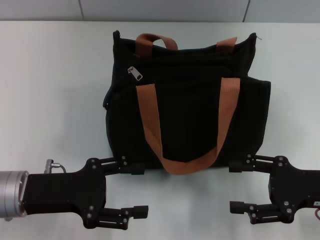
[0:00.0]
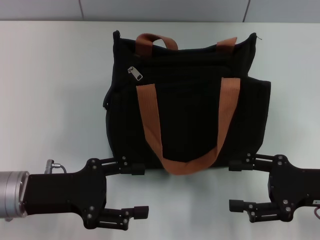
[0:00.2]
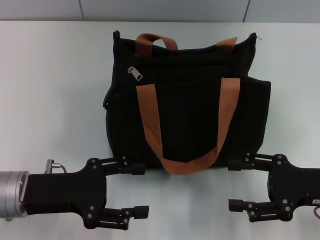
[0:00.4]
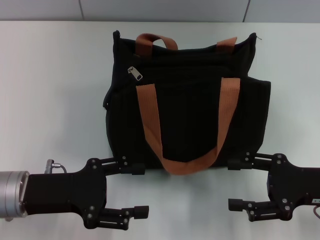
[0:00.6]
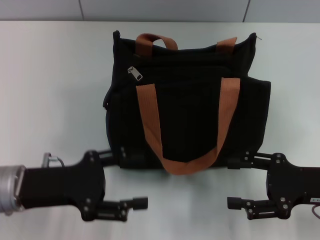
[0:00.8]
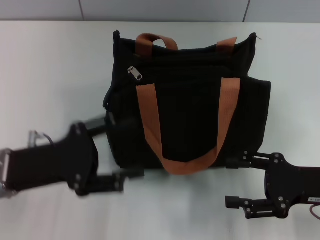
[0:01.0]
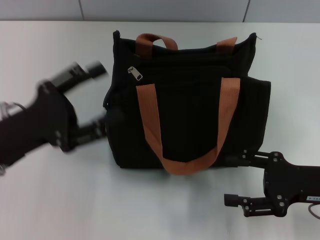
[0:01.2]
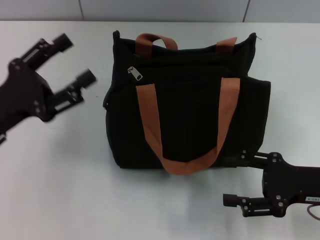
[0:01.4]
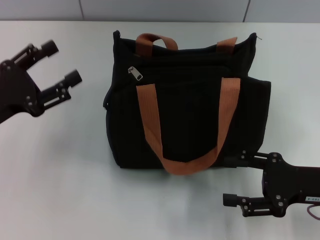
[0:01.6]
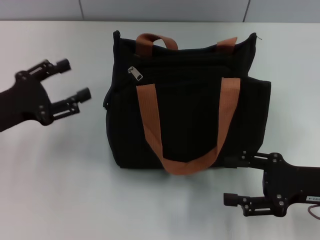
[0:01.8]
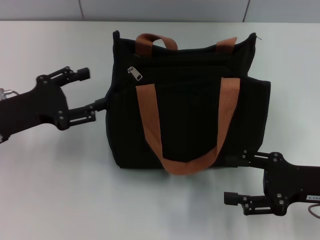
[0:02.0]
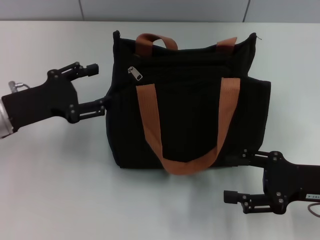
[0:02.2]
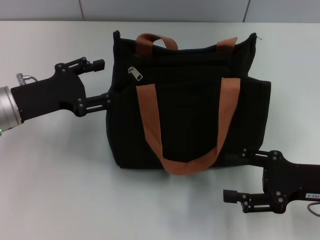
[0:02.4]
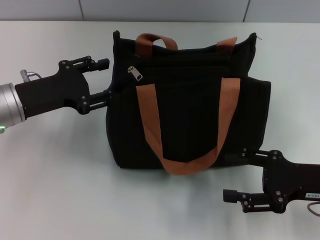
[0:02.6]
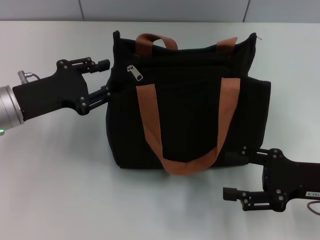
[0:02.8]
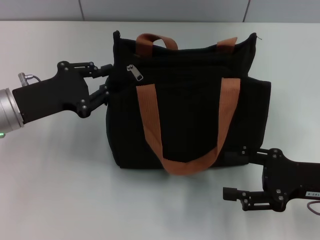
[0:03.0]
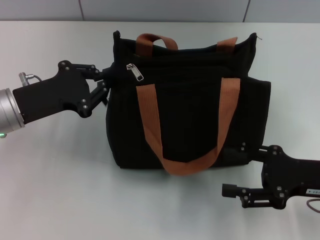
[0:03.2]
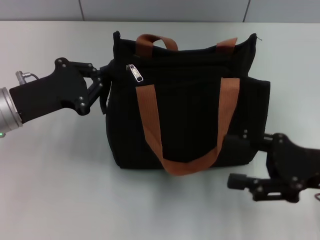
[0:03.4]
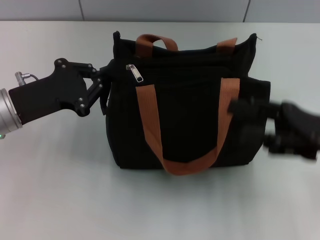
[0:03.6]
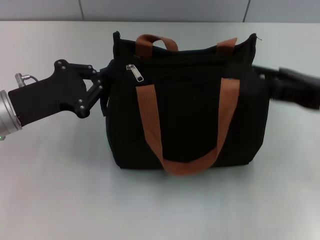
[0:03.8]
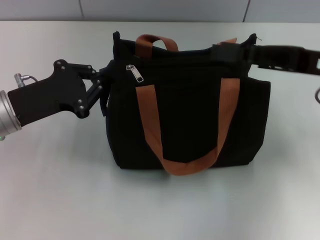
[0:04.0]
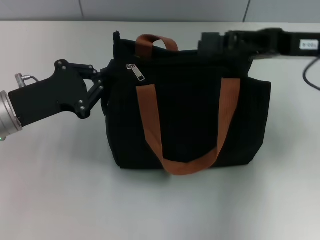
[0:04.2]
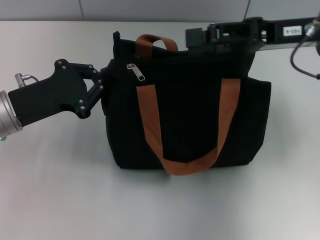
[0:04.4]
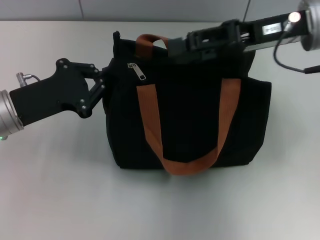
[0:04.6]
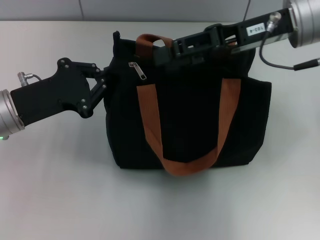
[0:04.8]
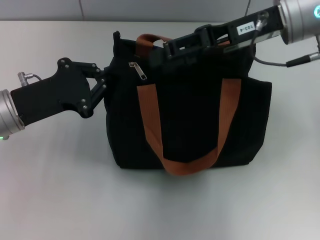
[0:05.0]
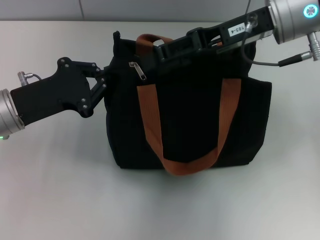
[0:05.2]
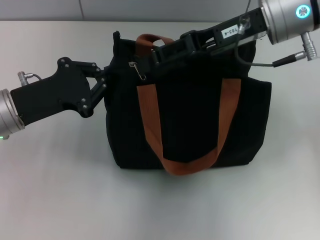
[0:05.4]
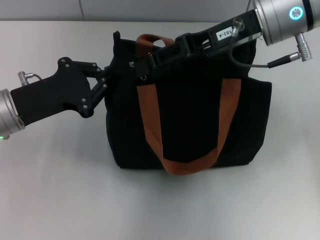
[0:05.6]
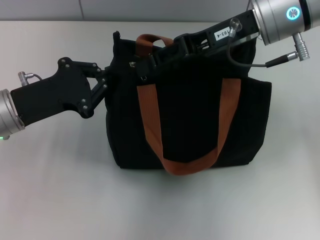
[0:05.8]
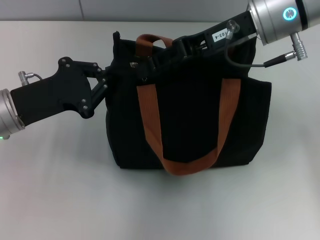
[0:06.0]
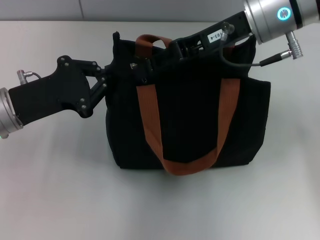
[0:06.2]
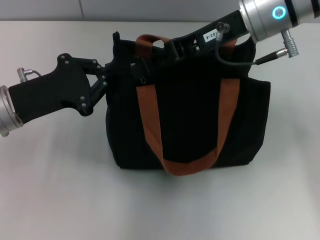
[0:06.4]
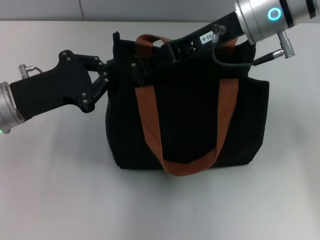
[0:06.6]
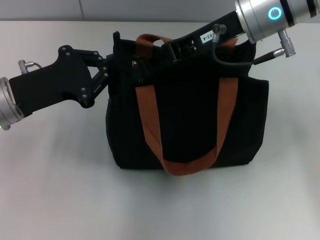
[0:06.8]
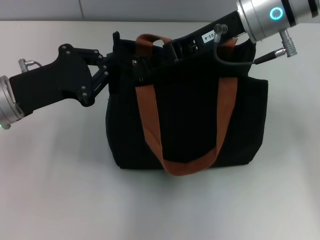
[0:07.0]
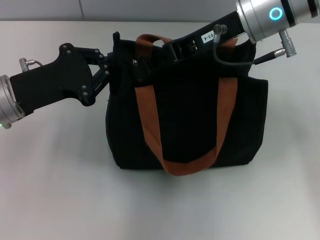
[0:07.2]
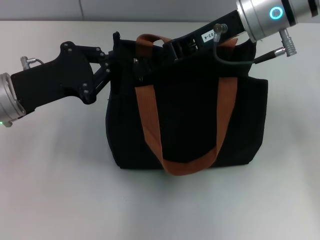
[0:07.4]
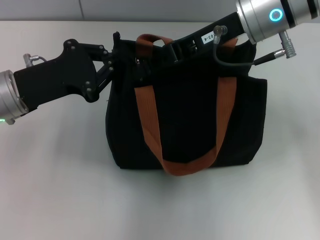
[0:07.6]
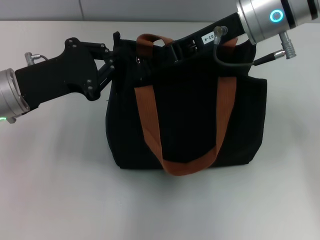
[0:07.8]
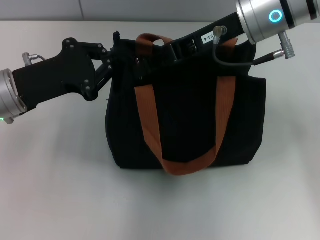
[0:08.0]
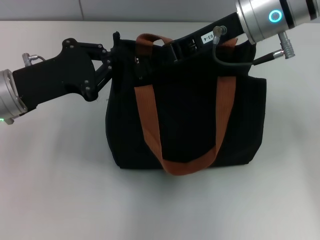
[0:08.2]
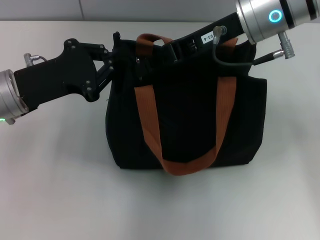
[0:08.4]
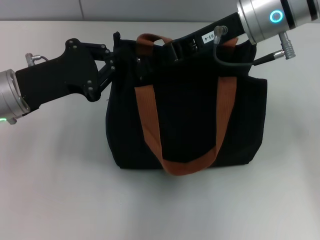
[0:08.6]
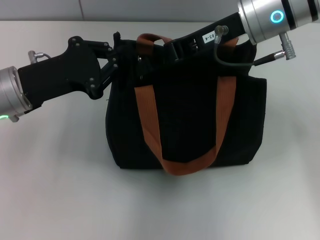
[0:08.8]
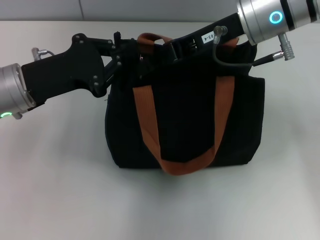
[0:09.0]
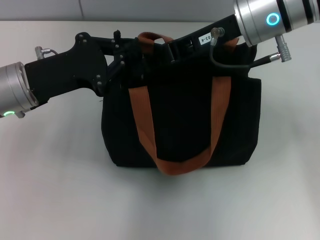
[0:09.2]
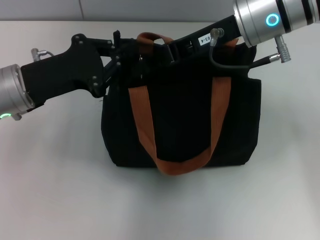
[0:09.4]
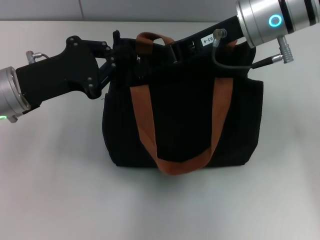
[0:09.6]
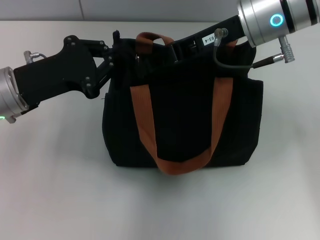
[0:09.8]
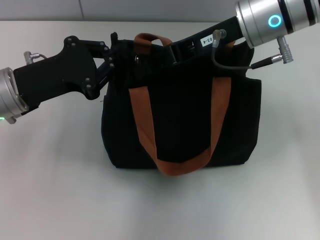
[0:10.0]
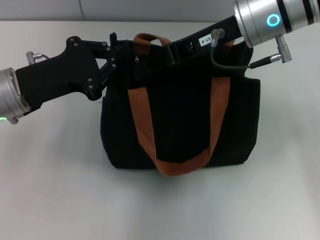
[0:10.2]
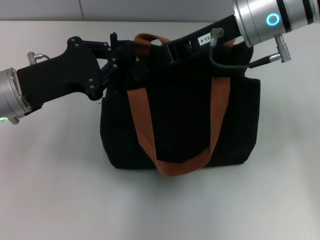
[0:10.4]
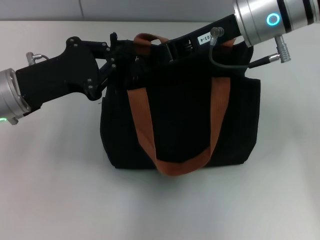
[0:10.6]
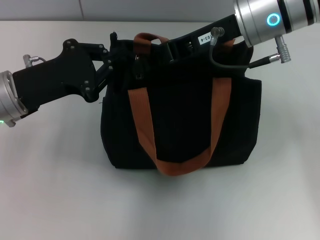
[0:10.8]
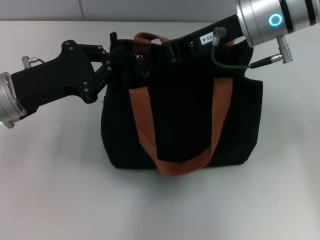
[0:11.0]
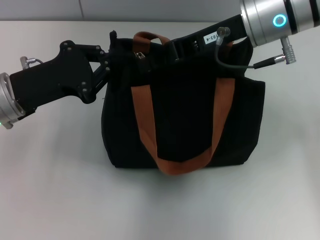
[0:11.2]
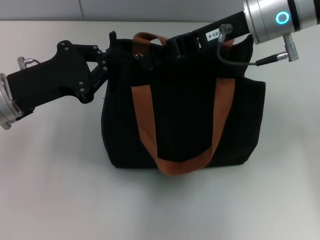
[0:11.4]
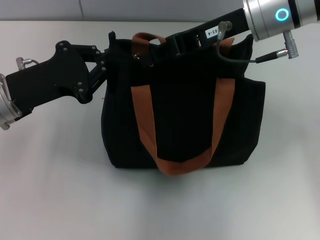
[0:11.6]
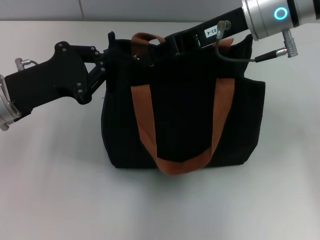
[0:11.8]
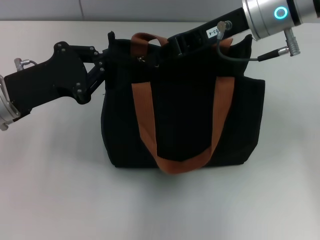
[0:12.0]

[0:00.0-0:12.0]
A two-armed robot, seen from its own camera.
0:00.0 to 0:01.6: The left gripper shifts about 5 cm to the left.
0:01.6 to 0:03.0: The left gripper ends up some 5 cm from where it was.
0:03.0 to 0:04.4: The right gripper shifts approximately 20 cm upward, forward and to the left, while the left gripper closes.
0:04.4 to 0:06.0: The right gripper moves to the left, about 10 cm, and closes its fingers.
0:06.0 to 0:07.6: The grippers make only small movements.
0:07.6 to 0:09.0: The two grippers keep their place.
0:09.0 to 0:10.4: Neither gripper changes place.
0:10.4 to 0:12.0: There are only small adjustments of the grippers.

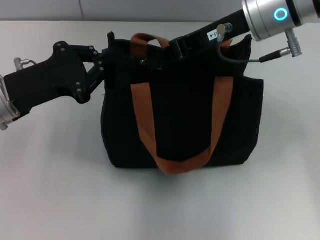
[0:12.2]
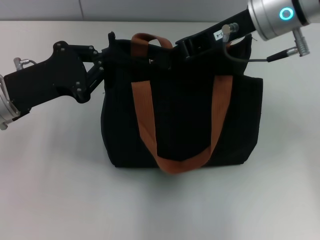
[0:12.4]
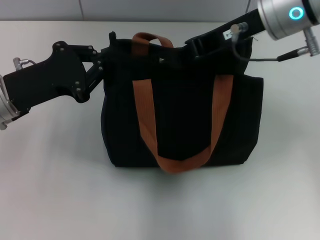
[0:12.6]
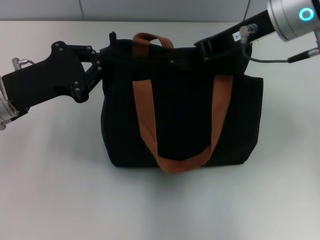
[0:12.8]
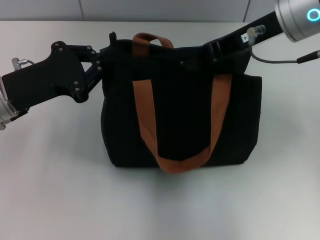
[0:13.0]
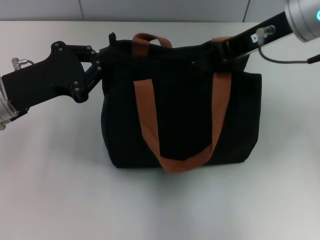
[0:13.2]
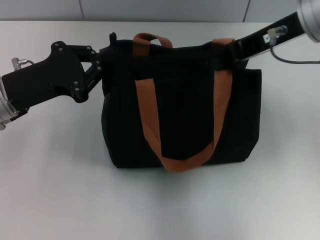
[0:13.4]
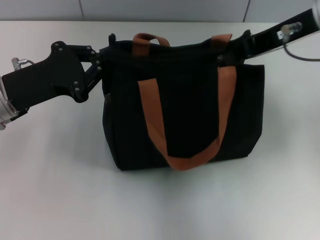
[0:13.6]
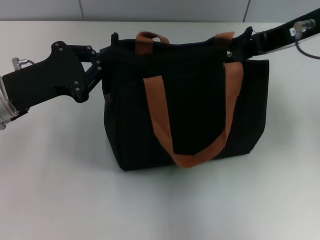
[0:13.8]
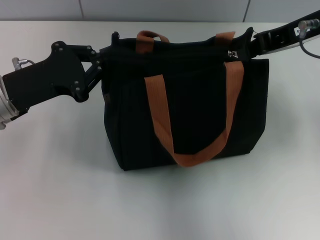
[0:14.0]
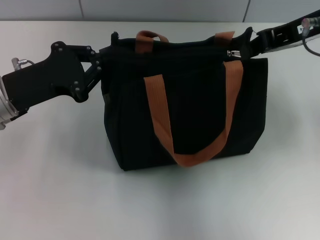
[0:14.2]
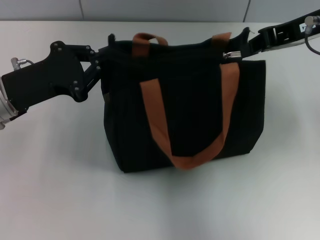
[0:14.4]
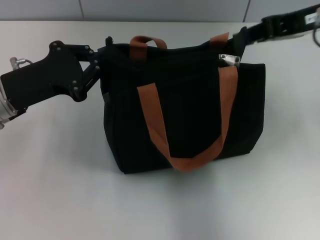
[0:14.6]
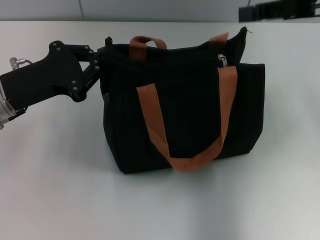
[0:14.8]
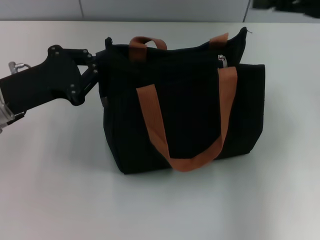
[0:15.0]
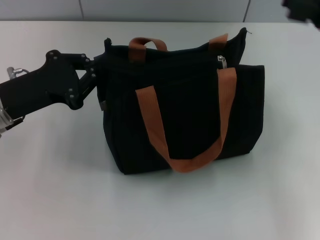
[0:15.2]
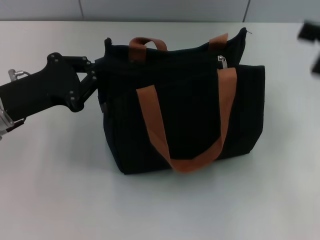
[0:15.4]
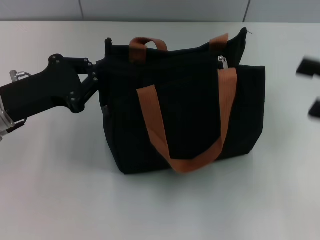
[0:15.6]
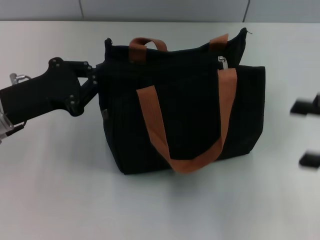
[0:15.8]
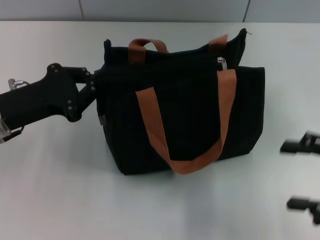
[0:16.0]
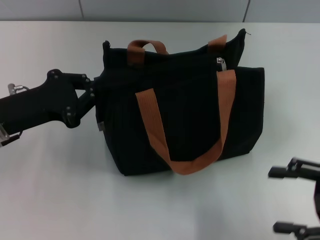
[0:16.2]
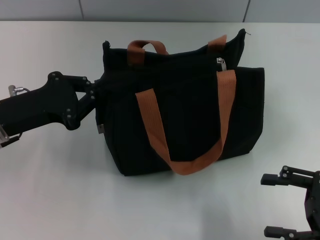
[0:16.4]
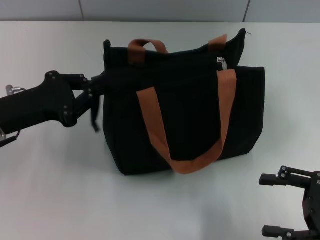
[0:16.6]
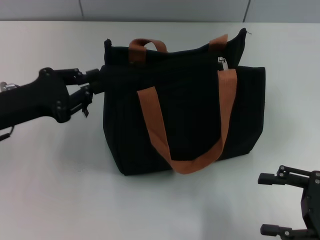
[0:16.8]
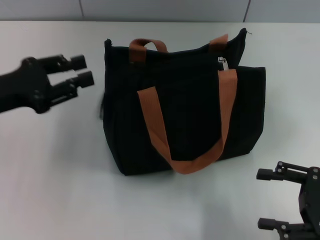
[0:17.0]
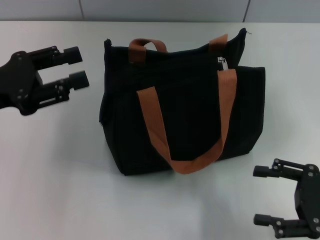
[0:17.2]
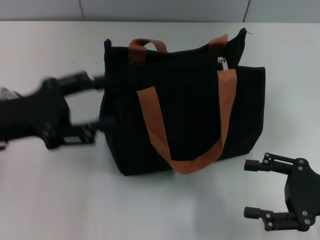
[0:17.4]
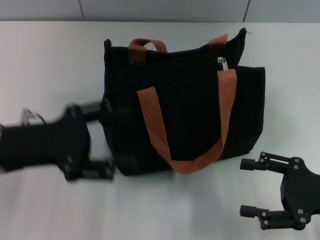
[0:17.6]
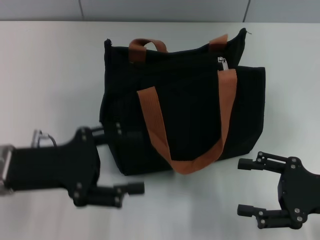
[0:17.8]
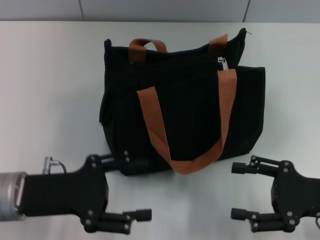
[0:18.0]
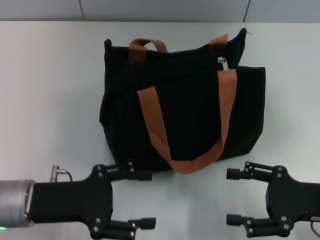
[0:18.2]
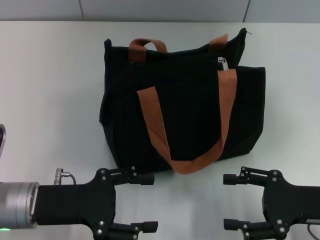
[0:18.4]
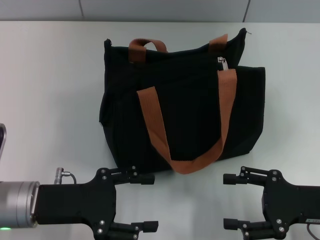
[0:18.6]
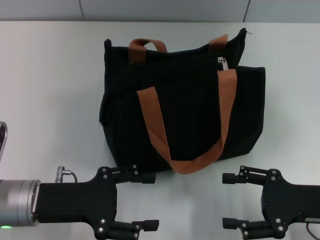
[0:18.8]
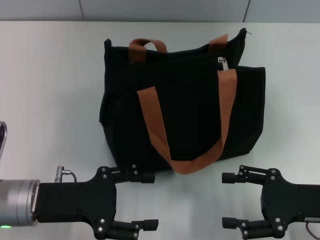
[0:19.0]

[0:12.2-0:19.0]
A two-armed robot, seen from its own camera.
Step, 0:12.2 to 0:14.4: Pull up the zipper with your right hand.
0:12.2 to 0:13.6: The right gripper shifts about 5 cm to the right.
0:13.6 to 0:15.0: The right gripper heads to the right, covering some 10 cm.
0:15.0 to 0:16.2: The right gripper travels downward and backward by some 20 cm, and opens.
0:16.2 to 0:17.6: The left gripper opens up.
0:17.6 to 0:19.0: The left gripper goes about 5 cm downward.
